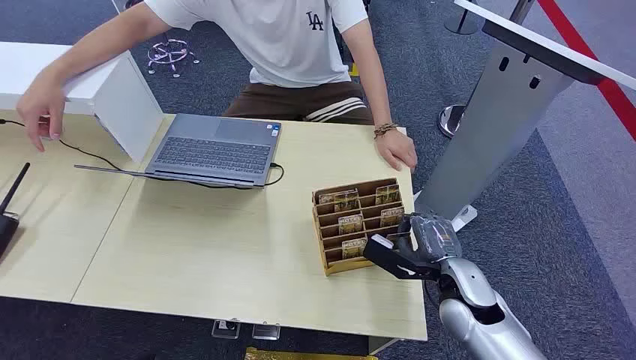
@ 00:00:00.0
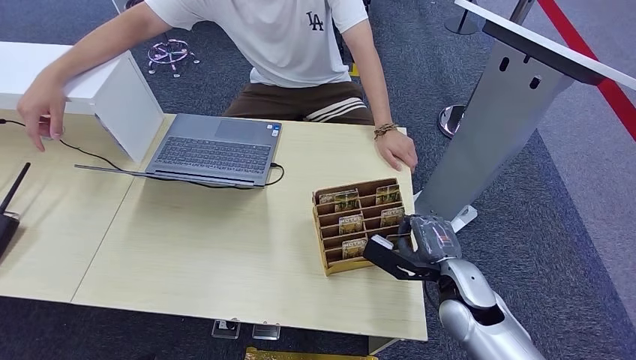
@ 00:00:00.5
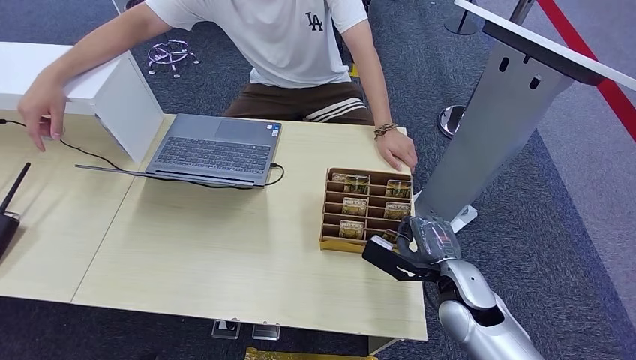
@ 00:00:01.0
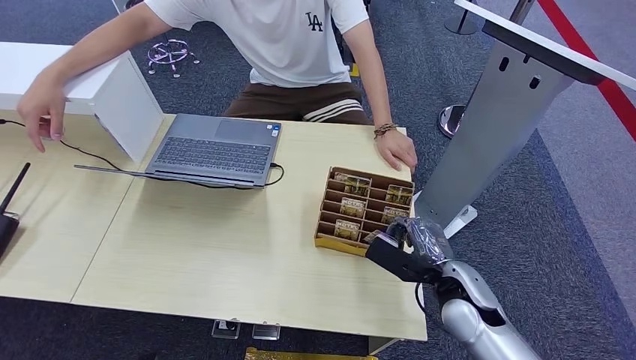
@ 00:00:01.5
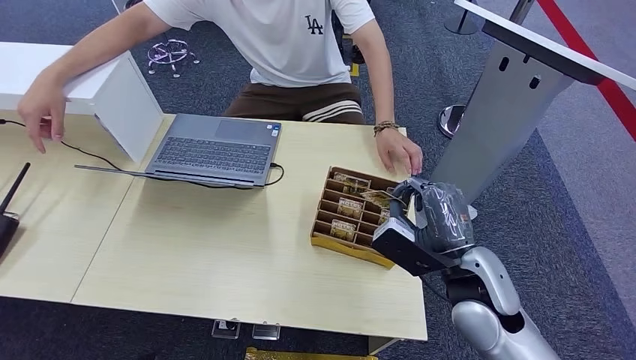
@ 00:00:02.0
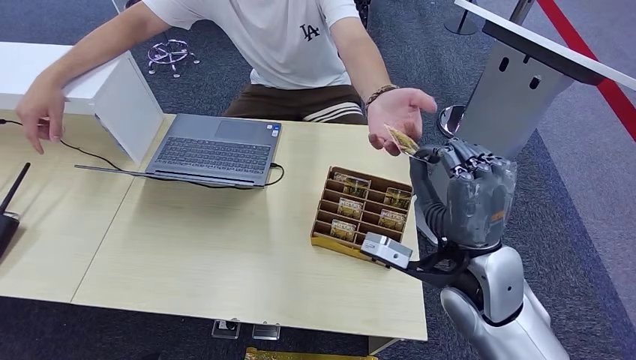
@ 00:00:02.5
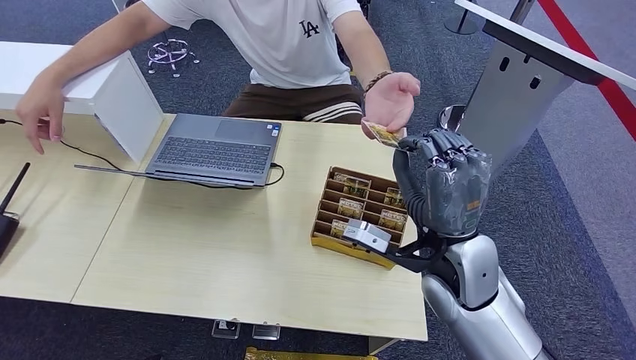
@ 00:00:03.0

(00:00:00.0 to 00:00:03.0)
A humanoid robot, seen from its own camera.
Step, 00:00:00.0 - 00:00:02.0: Pick up the room card from the card holder.
Step, 00:00:02.5 - 00:00:03.0: Hand the room card to the target.
00:00:01.5 - 00:00:03.0: The right hand is displaced upward and to the left by approximately 15 cm.

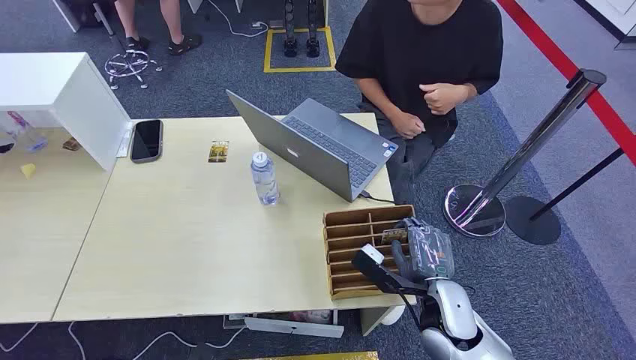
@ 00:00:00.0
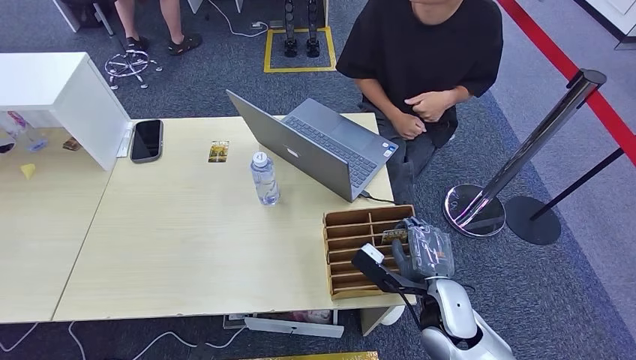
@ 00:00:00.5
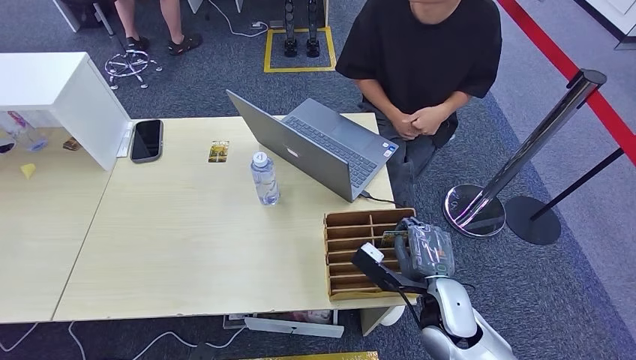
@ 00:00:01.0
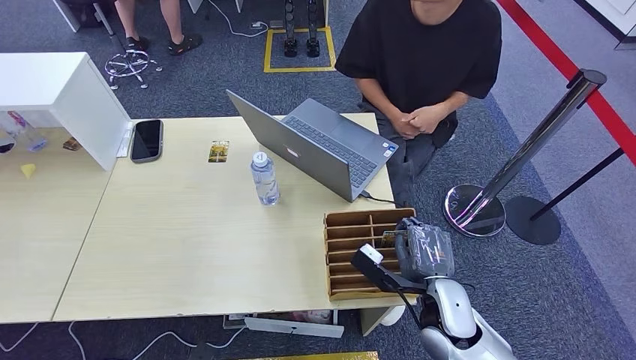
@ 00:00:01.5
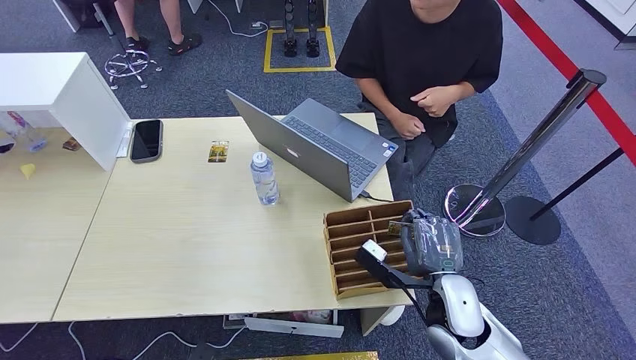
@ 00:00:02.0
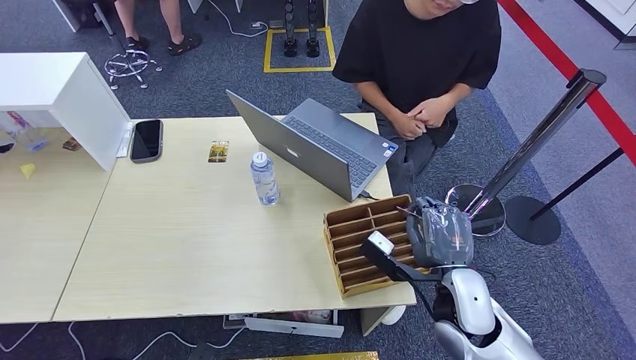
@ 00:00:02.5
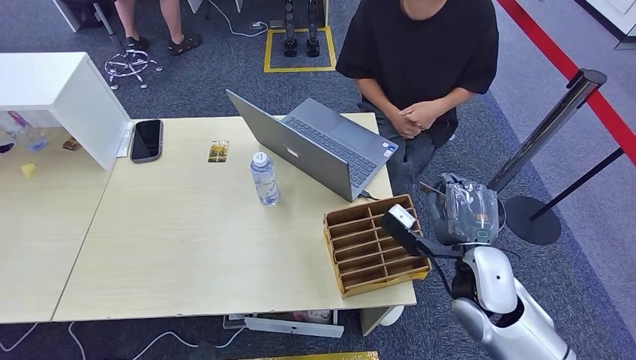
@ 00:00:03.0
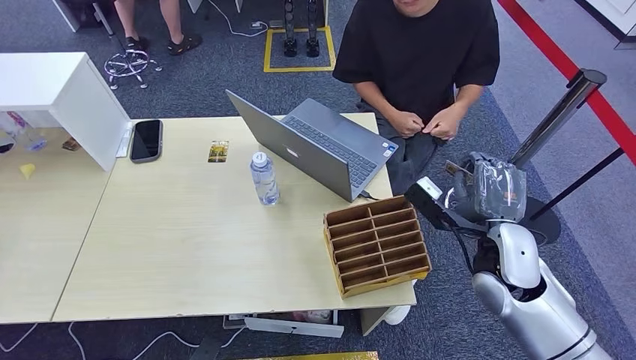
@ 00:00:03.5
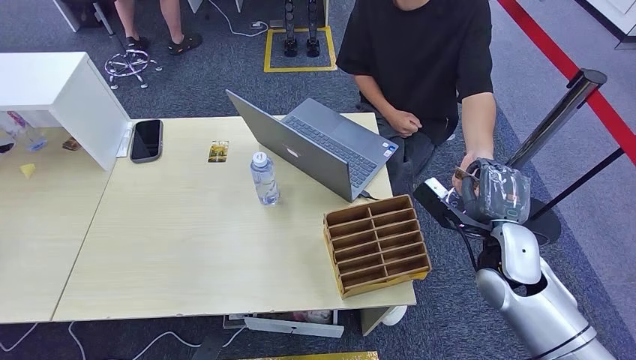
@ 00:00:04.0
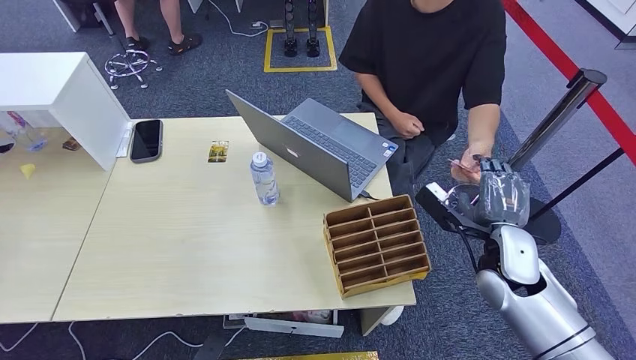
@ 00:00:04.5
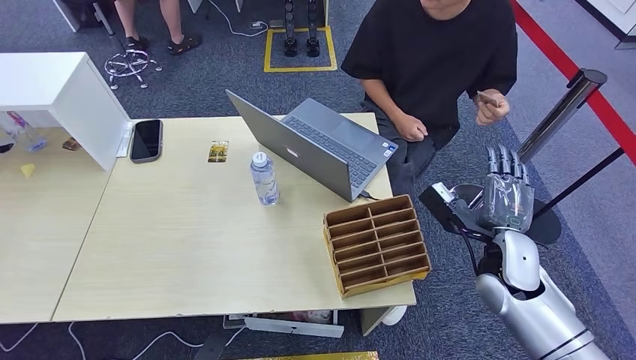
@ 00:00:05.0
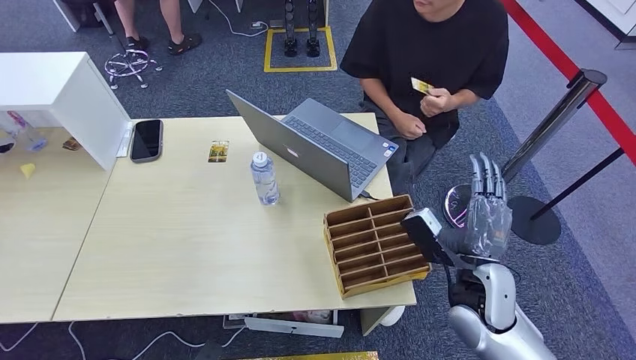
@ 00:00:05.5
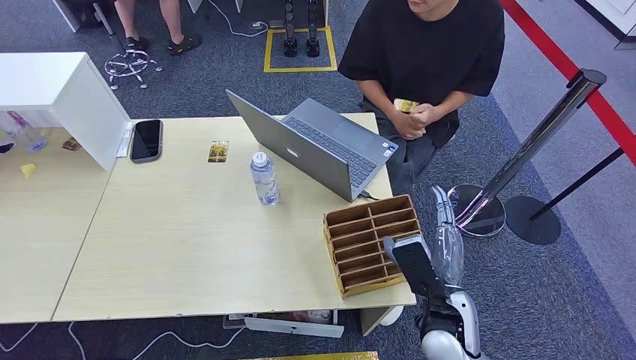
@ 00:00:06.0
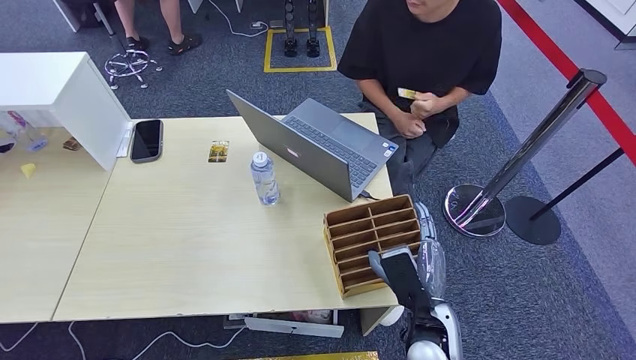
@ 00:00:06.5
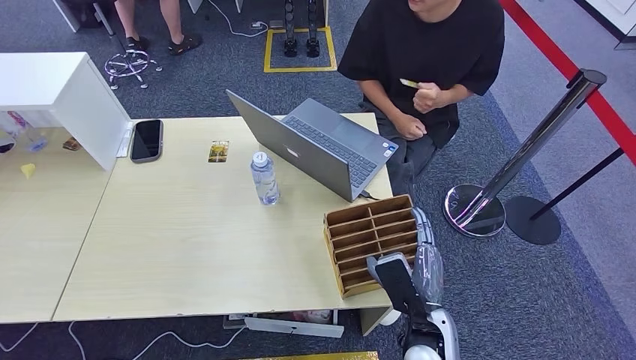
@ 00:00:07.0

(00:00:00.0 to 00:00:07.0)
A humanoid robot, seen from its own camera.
Step, 00:00:00.0 - 00:00:02.0: Pick up the room card from the card holder.
Step, 00:00:02.5 - 00:00:07.0: Hand the room card to the target.
00:00:02.0 - 00:00:03.5: The right hand is displaced upward and to the right by roughly 10 cm.
00:00:03.5 - 00:00:05.0: The hands move only a little.
00:00:05.0 - 00:00:07.0: The right hand shifts about 20 cm to the left, backward and downward.
